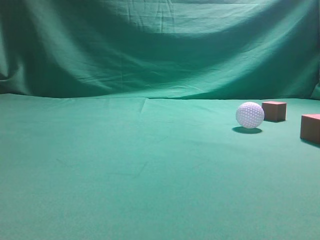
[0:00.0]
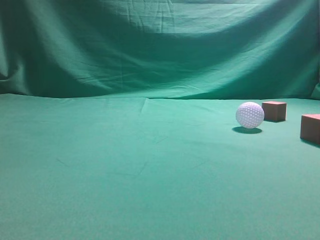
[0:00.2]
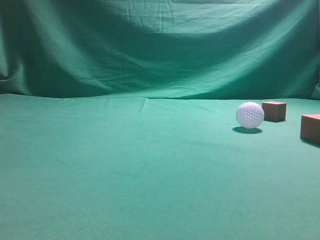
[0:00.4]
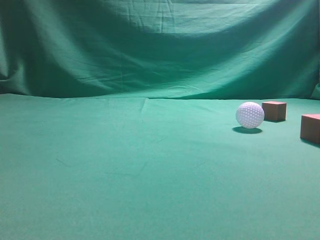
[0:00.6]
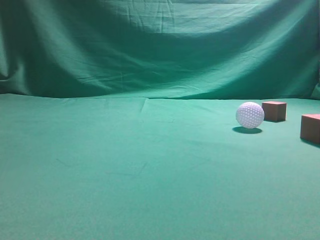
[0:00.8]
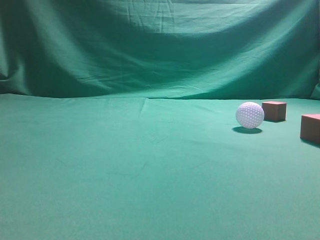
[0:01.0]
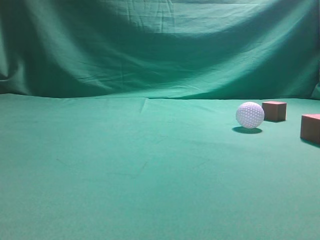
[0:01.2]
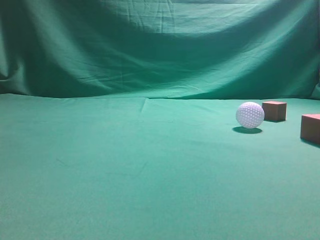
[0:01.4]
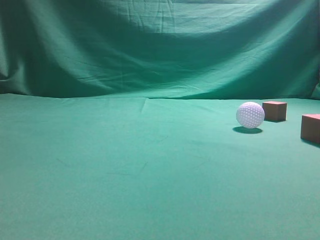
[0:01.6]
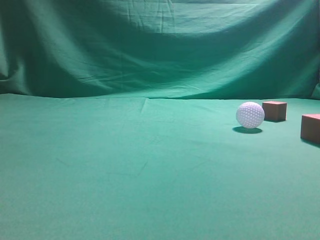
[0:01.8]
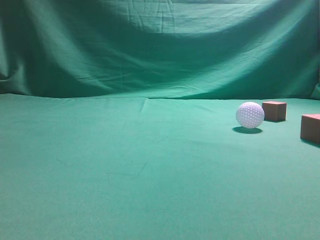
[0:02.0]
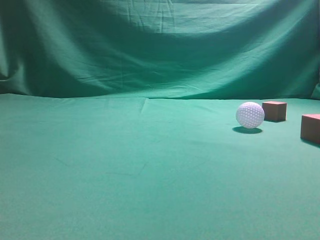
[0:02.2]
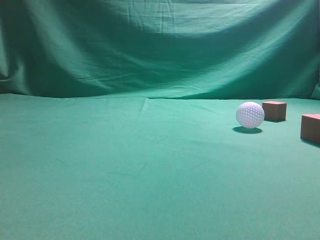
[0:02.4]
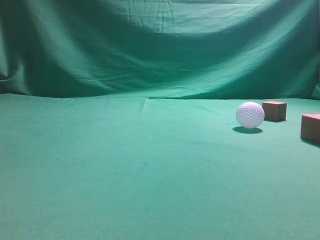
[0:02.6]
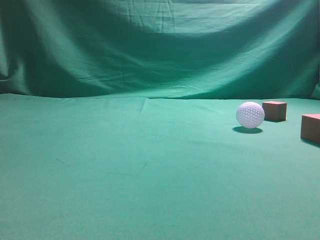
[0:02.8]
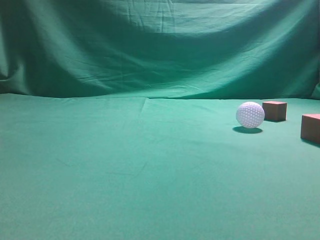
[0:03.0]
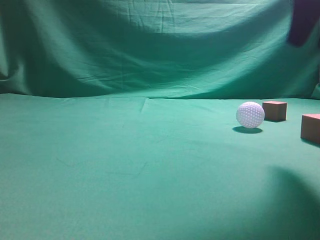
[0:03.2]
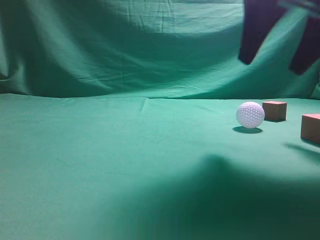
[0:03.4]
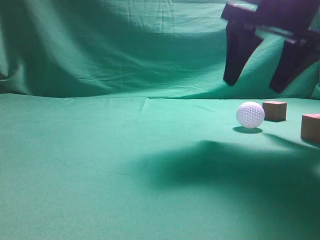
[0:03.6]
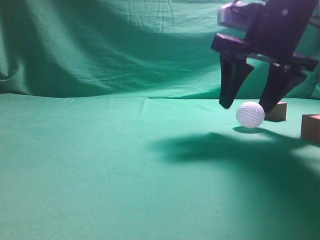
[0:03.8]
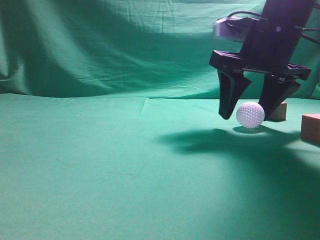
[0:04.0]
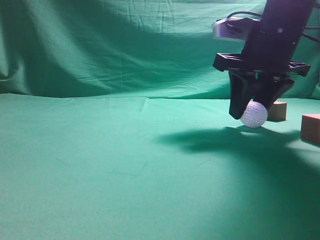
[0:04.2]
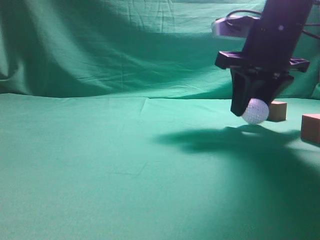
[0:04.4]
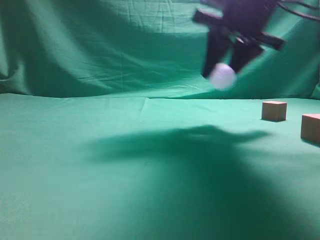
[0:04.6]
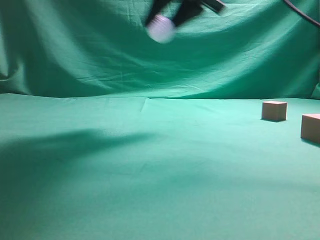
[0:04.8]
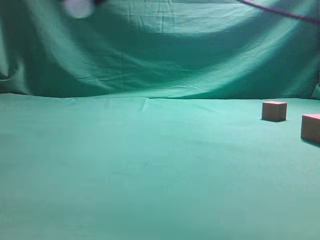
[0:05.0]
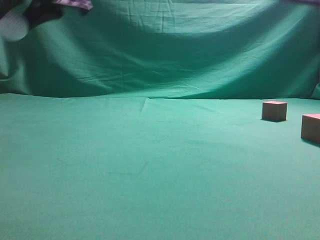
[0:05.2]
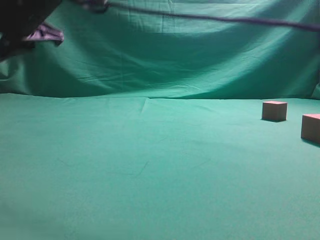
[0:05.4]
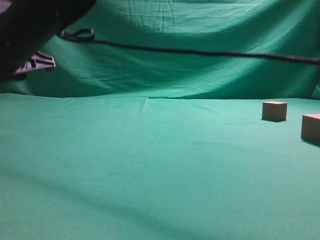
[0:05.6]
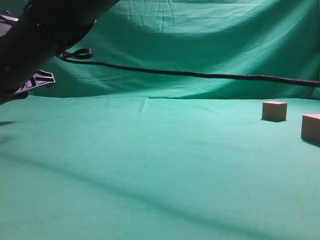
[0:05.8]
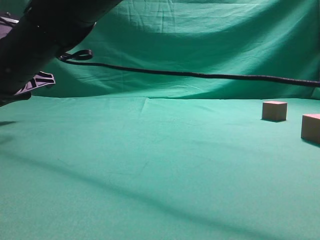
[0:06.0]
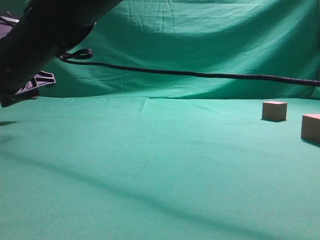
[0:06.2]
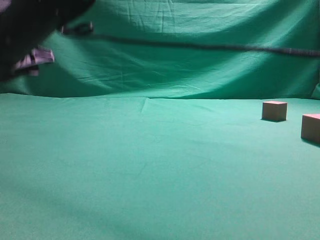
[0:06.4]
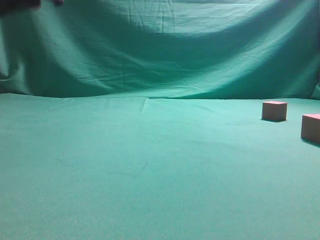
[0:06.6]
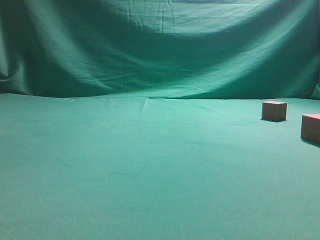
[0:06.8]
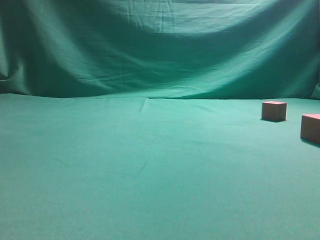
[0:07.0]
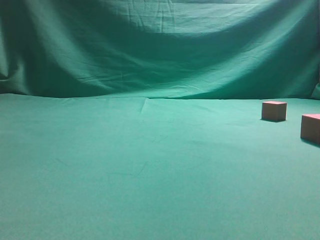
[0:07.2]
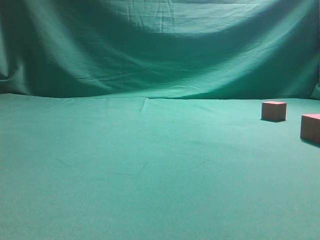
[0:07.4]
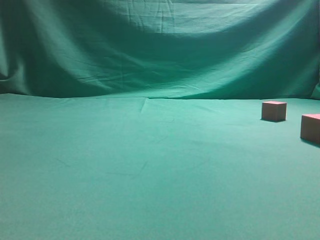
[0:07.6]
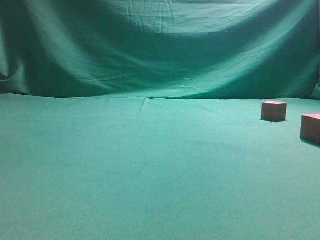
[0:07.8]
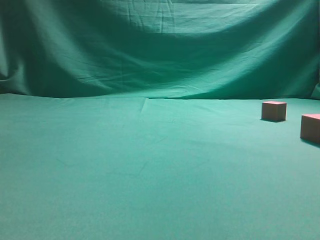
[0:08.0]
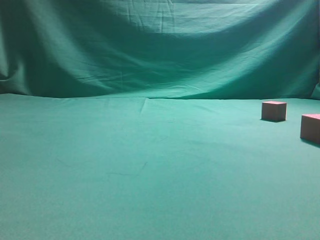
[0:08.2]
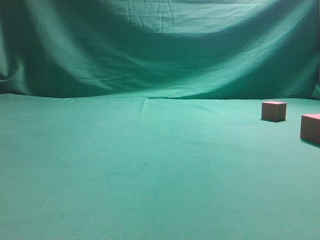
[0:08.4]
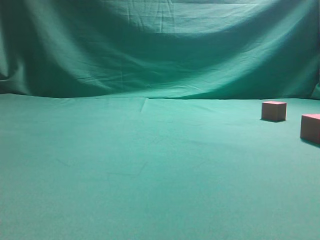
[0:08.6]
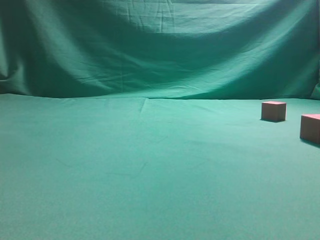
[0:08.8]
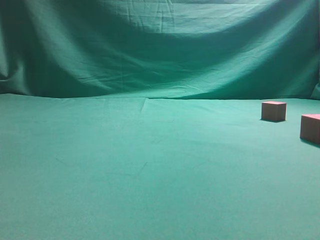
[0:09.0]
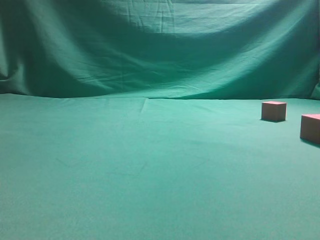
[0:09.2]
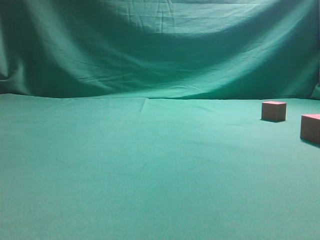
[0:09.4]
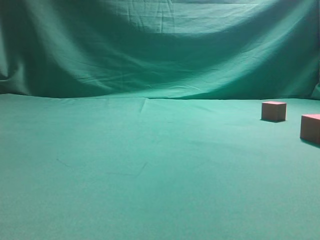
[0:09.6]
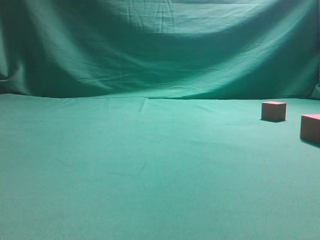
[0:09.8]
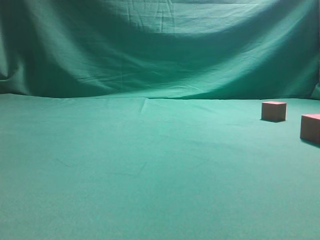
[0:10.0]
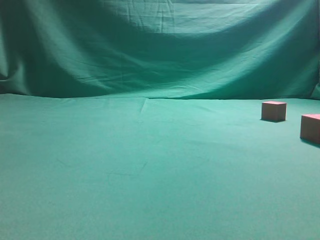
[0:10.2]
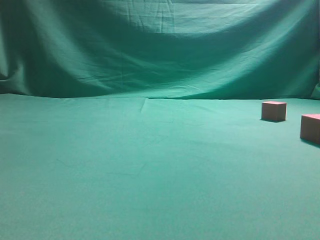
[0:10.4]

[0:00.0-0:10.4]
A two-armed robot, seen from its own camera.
Step, 0:00.0 to 0:04.4: Grasp the spherical object on the right side.
0:03.0 to 0:04.4: The right gripper heads forward, downward and to the left, covering about 20 cm, and opens up.
0:04.4 to 0:06.0: The right gripper goes some 35 cm to the left.
0:06.0 to 0:07.4: The right gripper goes some 40 cm upward and to the right, and closes up.
